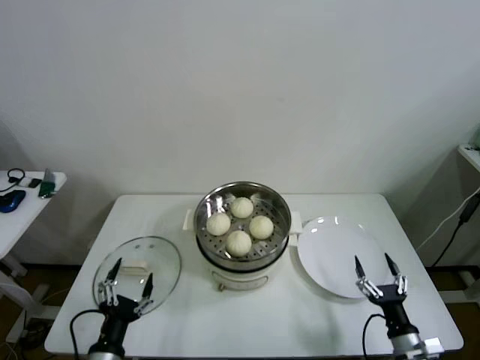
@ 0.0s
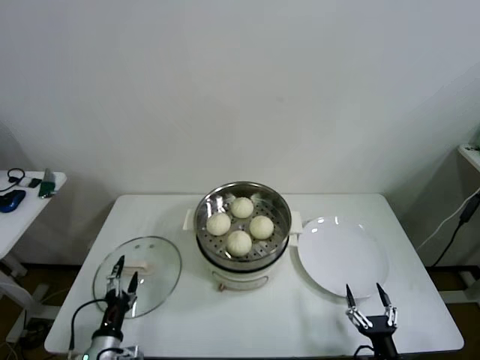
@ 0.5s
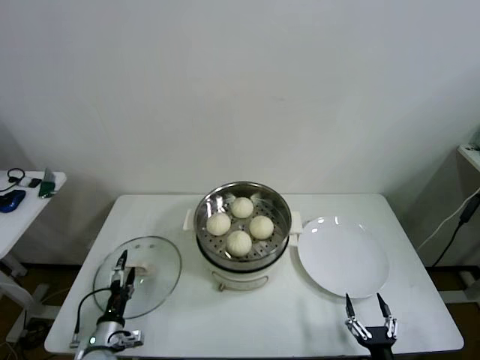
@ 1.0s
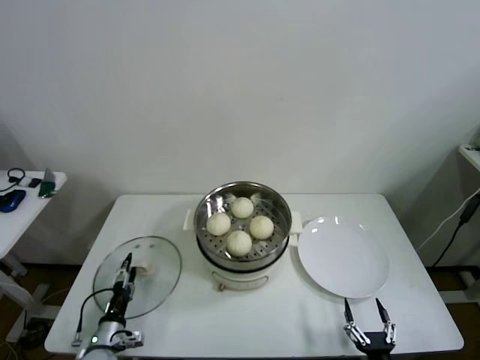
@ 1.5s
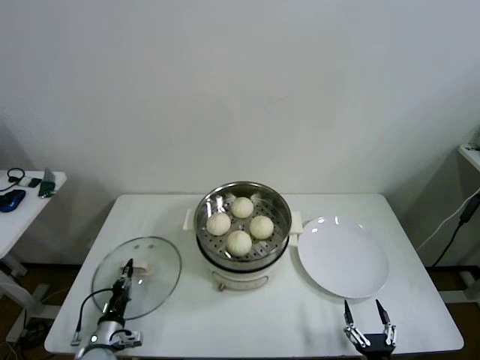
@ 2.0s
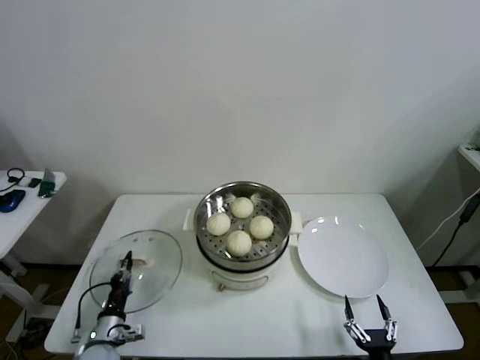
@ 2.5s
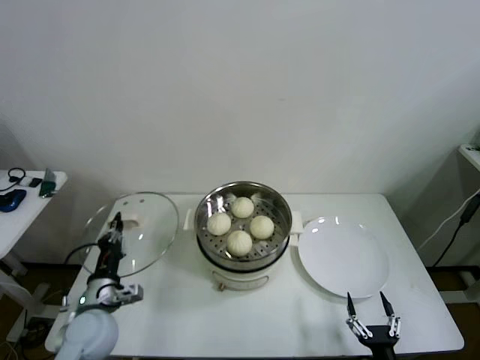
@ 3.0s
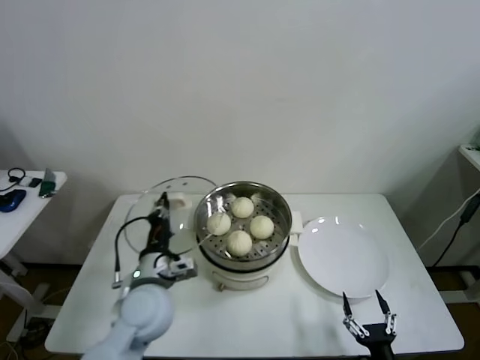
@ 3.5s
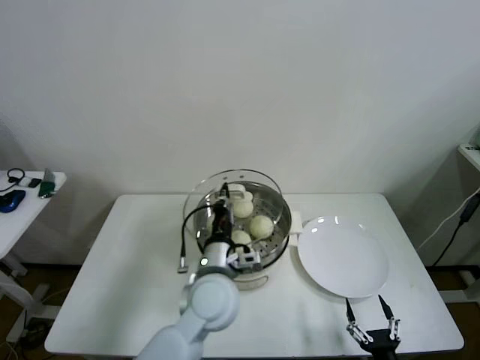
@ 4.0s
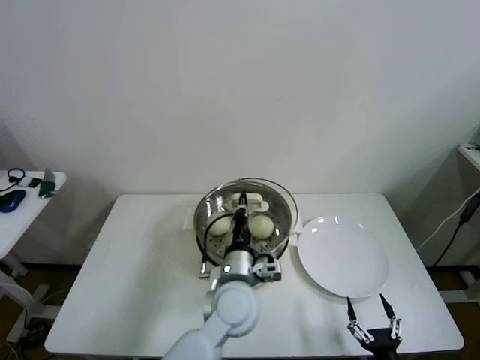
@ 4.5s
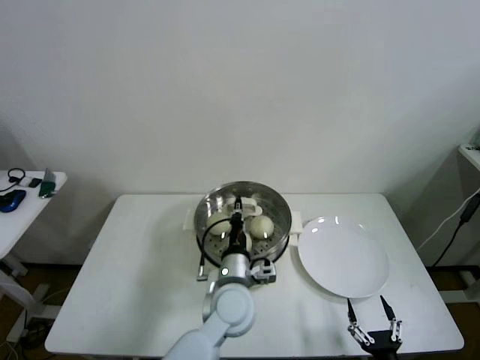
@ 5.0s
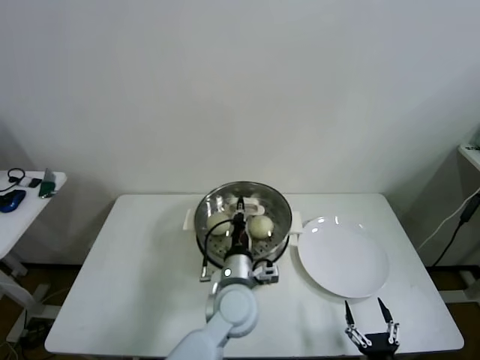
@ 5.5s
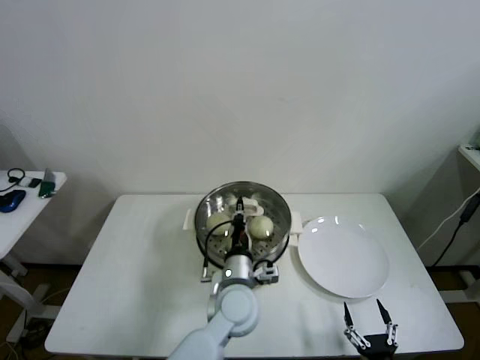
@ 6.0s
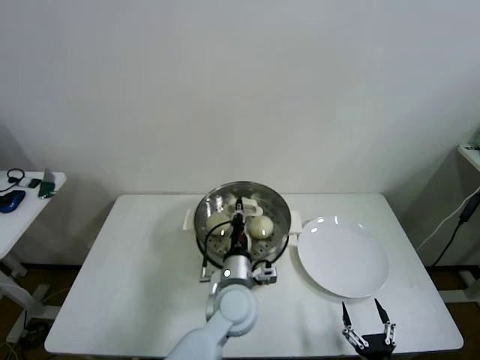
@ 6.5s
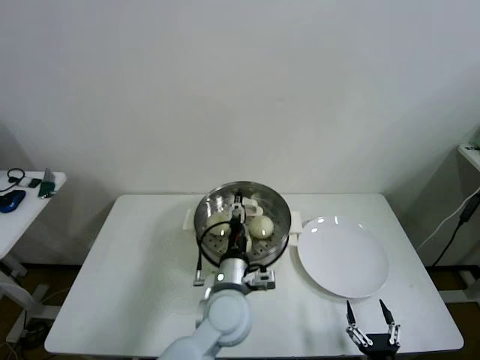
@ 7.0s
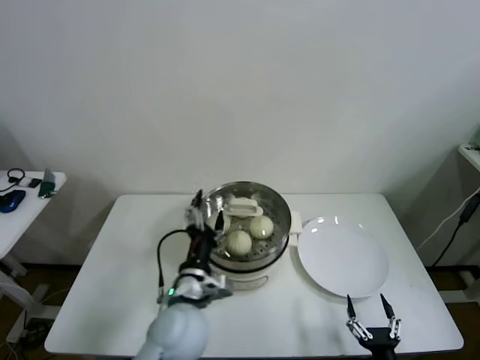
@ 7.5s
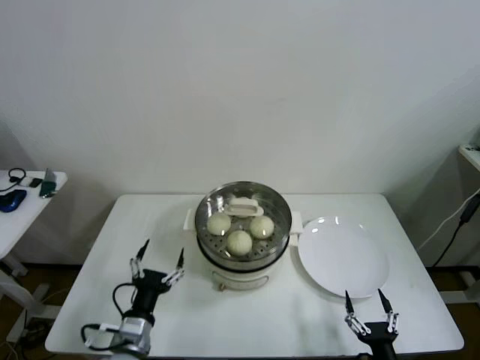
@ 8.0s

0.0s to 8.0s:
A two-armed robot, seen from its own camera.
Step, 0.0s to 2.0s: Grasp the pot lid with left gripper.
Step, 2.5s to 6.5s: Place the pot lid on the steamer with left gripper.
0.0s to 2.0s: The right gripper heads backward, to the left and downward, covering roughly 10 cm. The left gripper shifts some 20 cm downward, forward and to the left, and closes up.
2.0s to 4.0s: The left gripper is displaced to the right and upward by some 40 cm.
4.0s to 6.0s: The left gripper is displaced downward and to the right by about 10 cm.
6.0s to 8.0s: The left gripper moves to the left and backward, approximately 25 cm, and opens.
